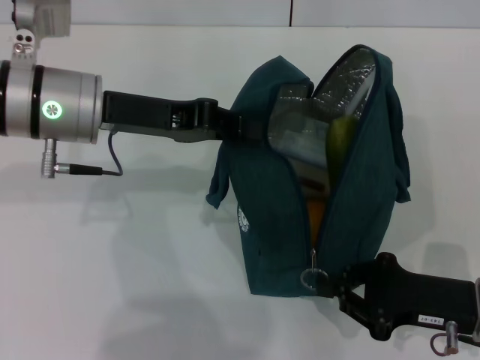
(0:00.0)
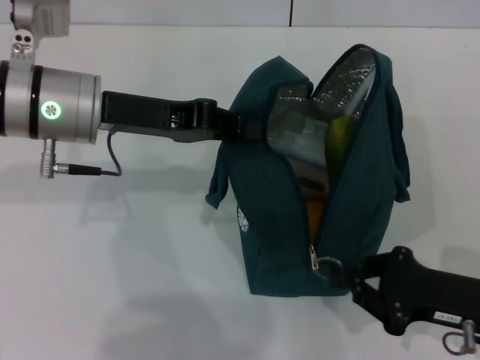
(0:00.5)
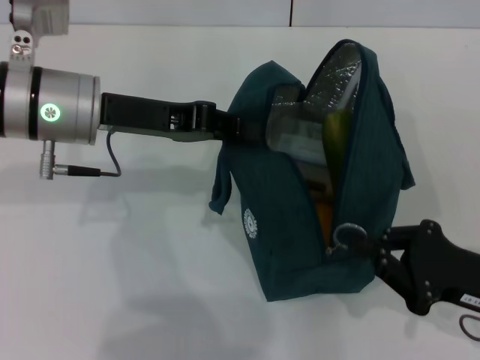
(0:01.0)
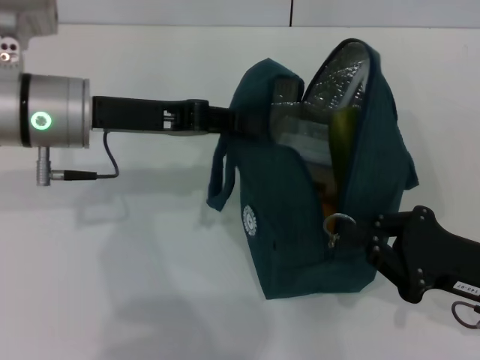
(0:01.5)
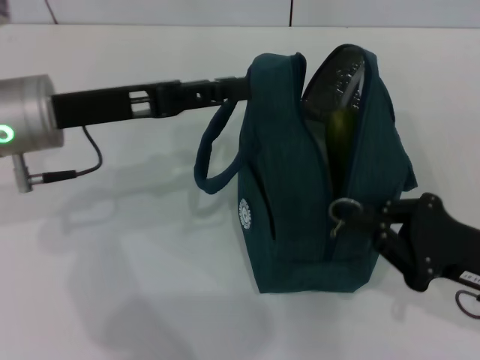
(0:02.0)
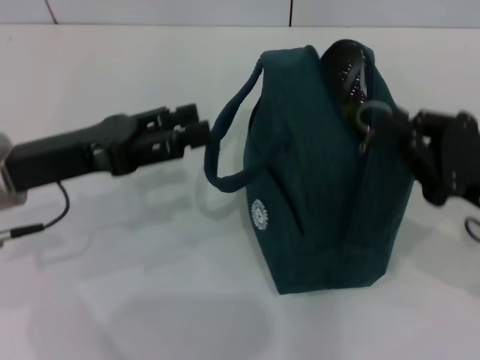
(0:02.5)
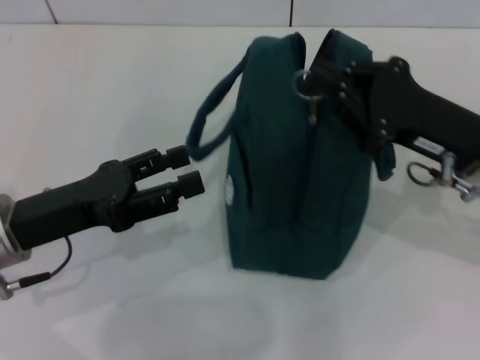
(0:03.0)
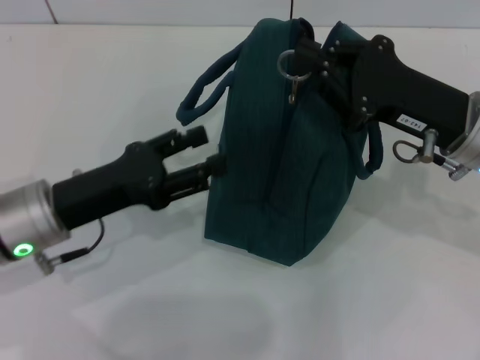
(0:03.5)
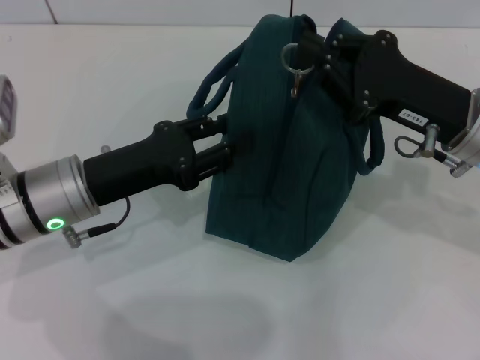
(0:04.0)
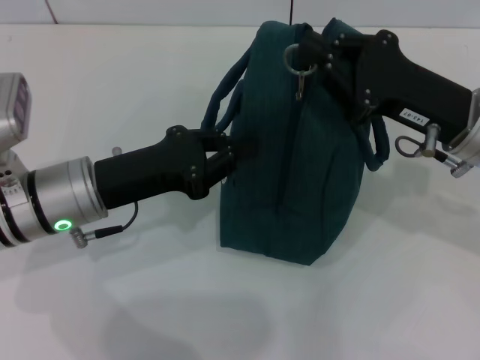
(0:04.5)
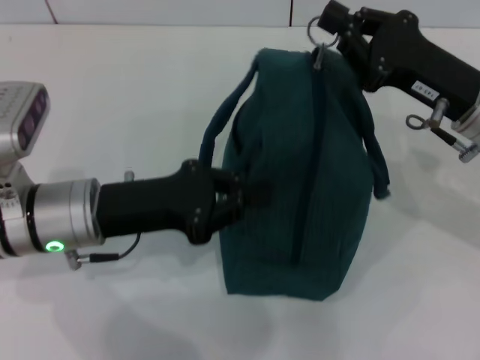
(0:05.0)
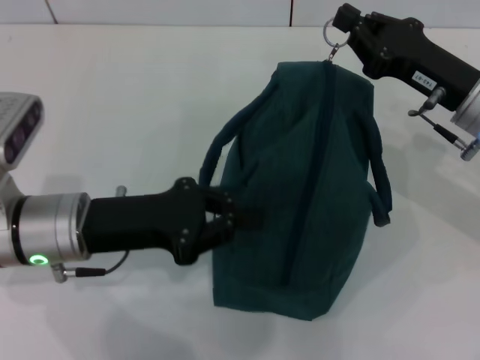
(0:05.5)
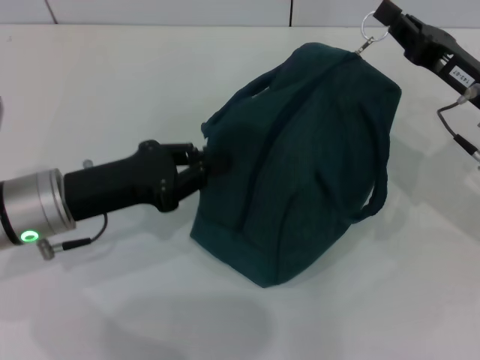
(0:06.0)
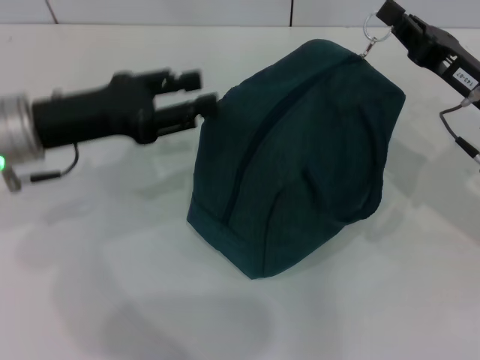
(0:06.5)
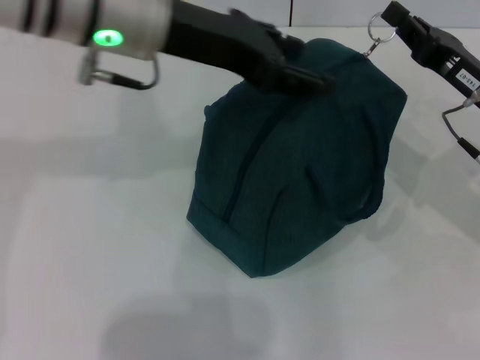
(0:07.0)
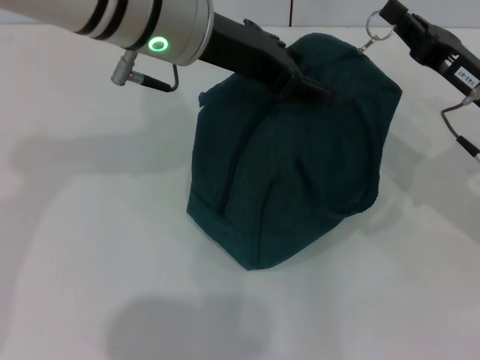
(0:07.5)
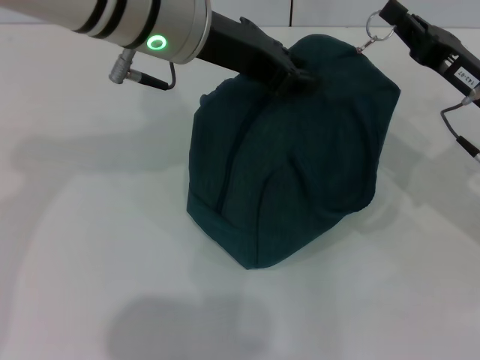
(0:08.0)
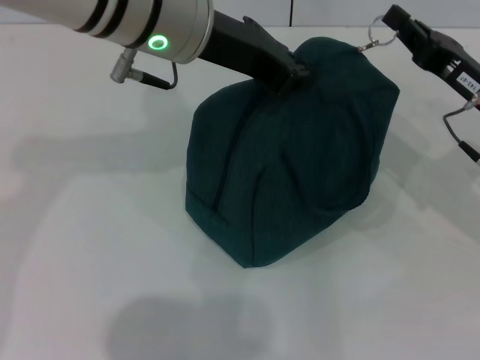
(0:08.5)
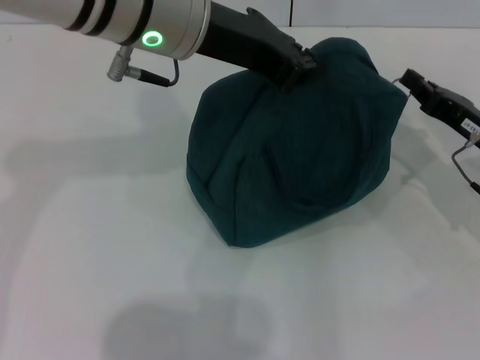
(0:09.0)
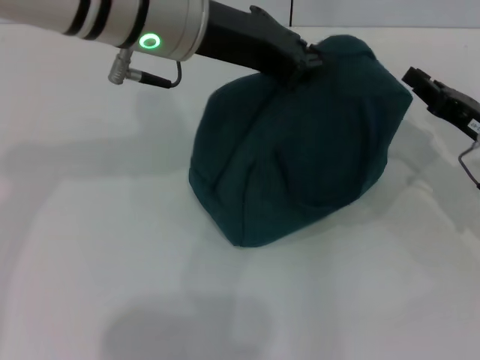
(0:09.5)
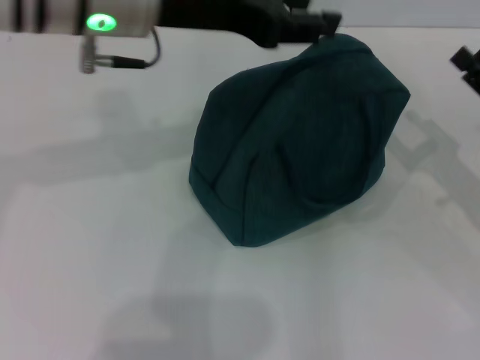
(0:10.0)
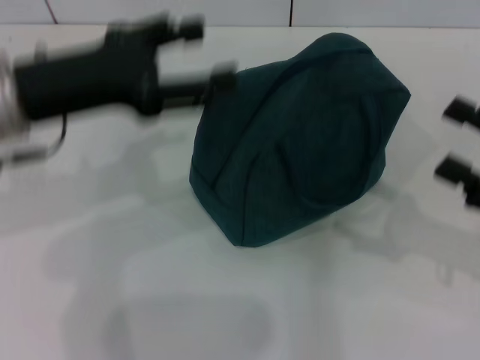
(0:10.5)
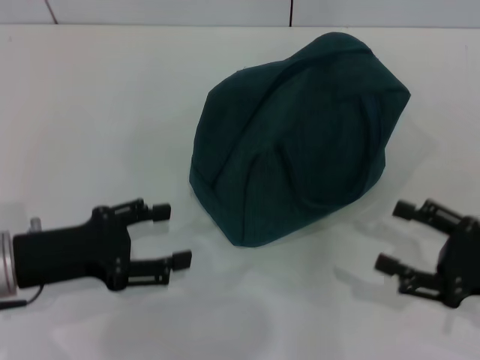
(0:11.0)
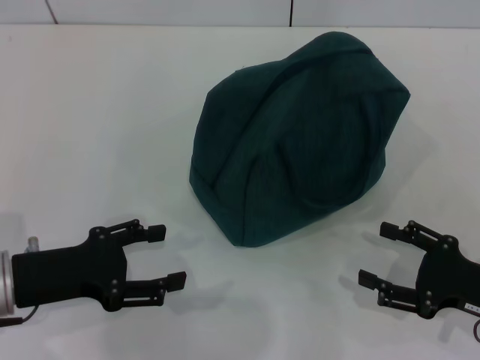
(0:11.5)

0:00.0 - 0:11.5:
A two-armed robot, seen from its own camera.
Step, 0:00.0 - 0:03.0: Hold the lunch bag with your left hand.
Step, 0:03.5 - 0:09.0: Zip up the lunch bag with your right hand.
0:00.0 - 0:02.0: The left gripper opens its fingers.
0:02.0 - 0:04.0: The right gripper shifts roughly 15 cm forward, upward and to the left, while the left gripper travels downward by some 10 cm.
0:04.0 - 0:06.0: The right gripper changes place by about 5 cm. The left gripper closes up.
0:06.0 - 0:07.5: The left gripper is displaced upward, to the right and forward by roughly 20 cm, and opens up.
0:07.5 - 0:09.5: The right gripper moves approximately 5 cm. The left gripper closes up.
0:09.5 - 0:11.5: The left gripper shifts roughly 30 cm downward, to the left and backward, and opens; the right gripper travels backward by roughly 10 cm, and opens up.

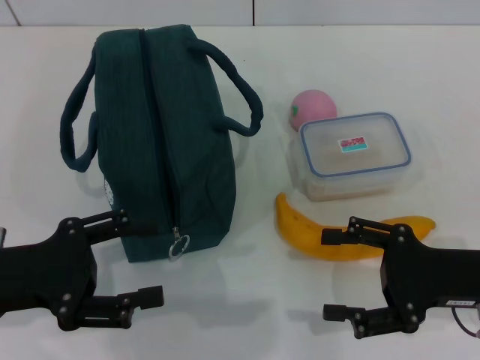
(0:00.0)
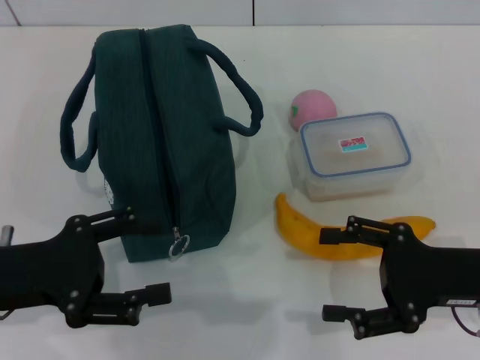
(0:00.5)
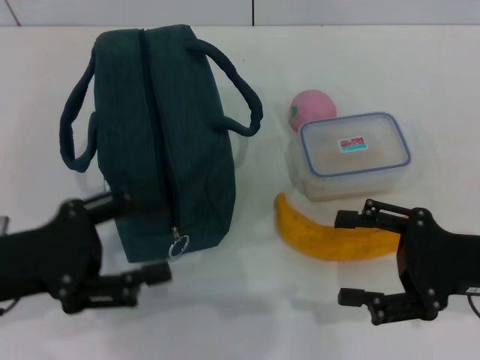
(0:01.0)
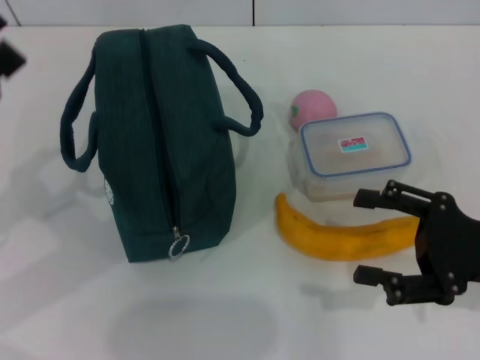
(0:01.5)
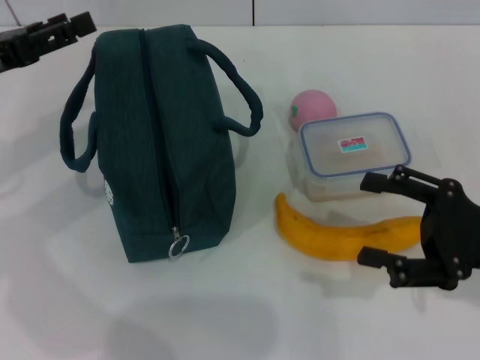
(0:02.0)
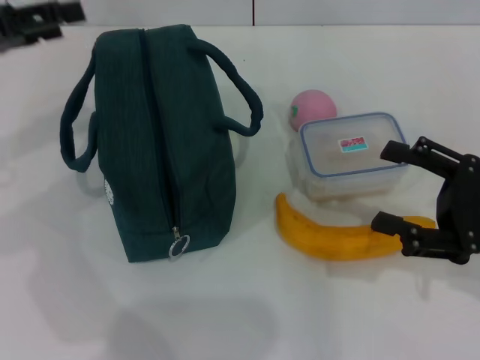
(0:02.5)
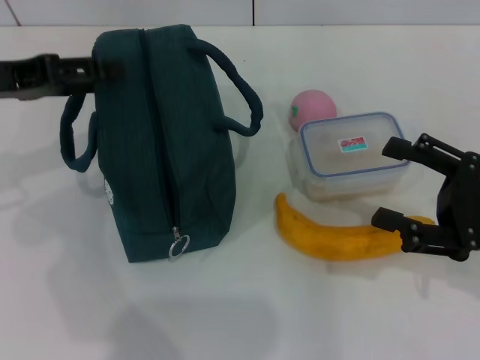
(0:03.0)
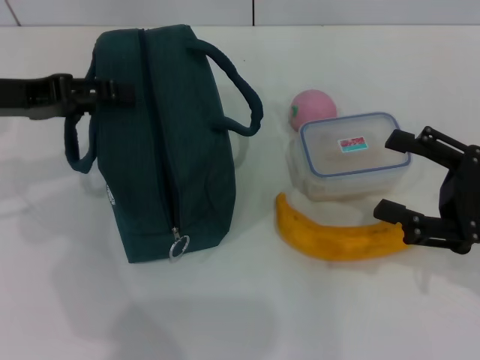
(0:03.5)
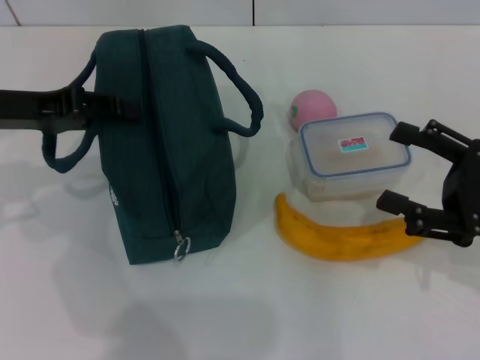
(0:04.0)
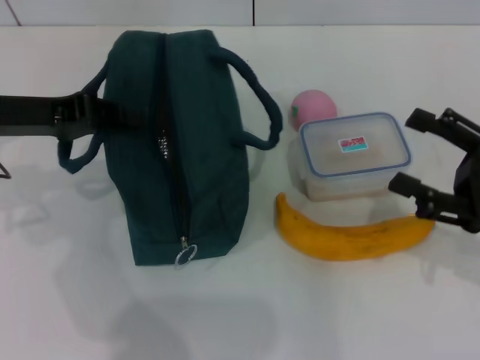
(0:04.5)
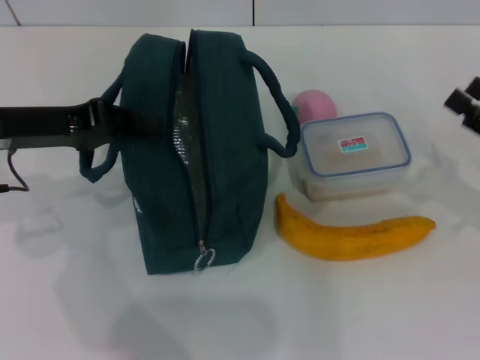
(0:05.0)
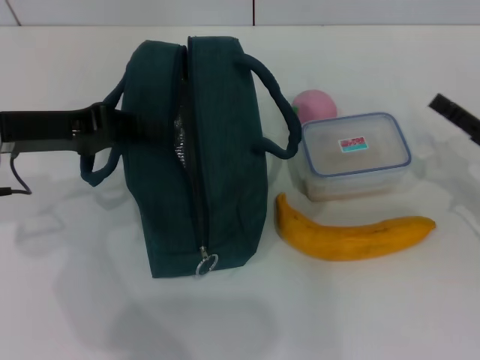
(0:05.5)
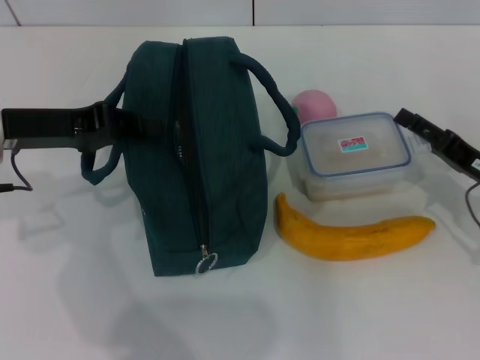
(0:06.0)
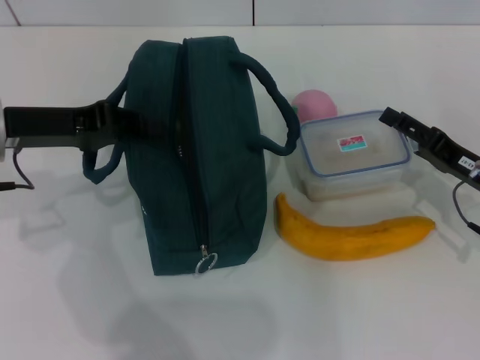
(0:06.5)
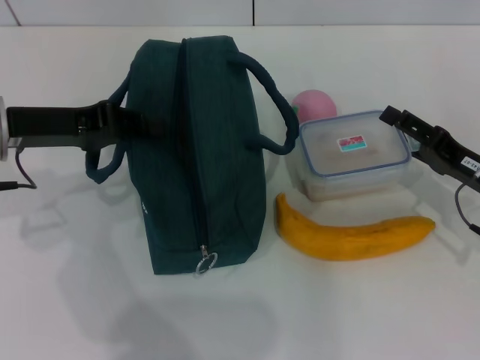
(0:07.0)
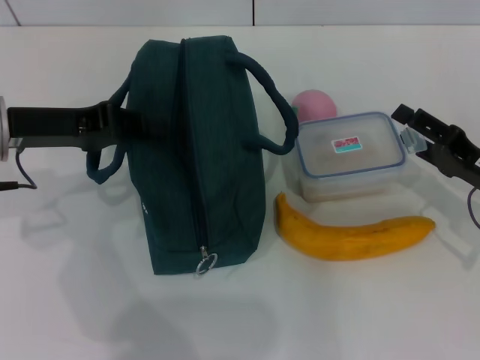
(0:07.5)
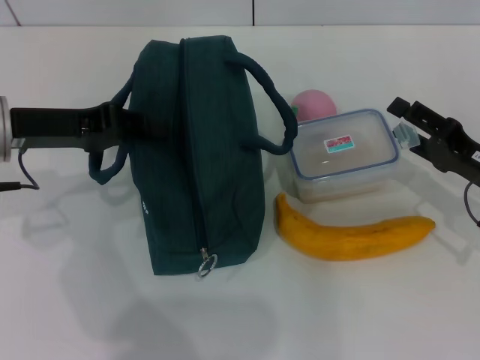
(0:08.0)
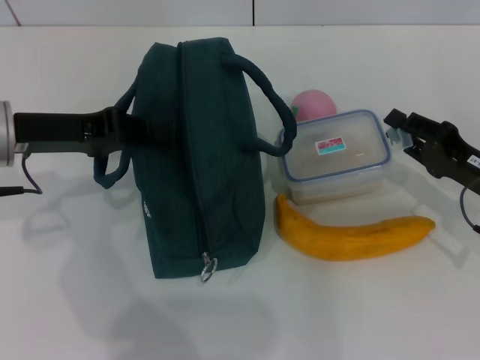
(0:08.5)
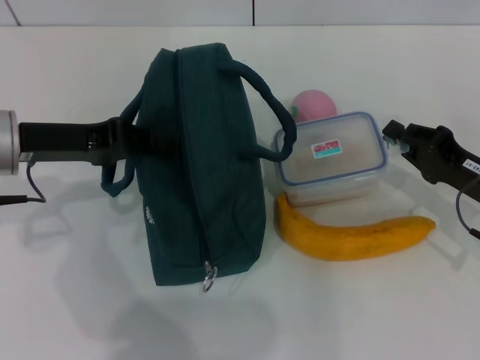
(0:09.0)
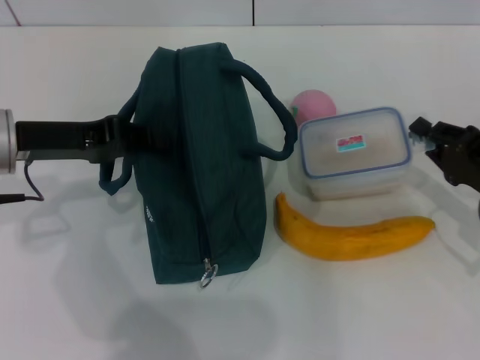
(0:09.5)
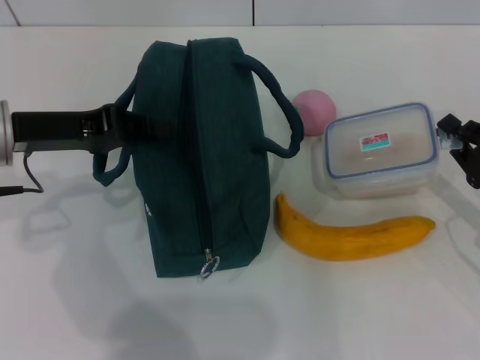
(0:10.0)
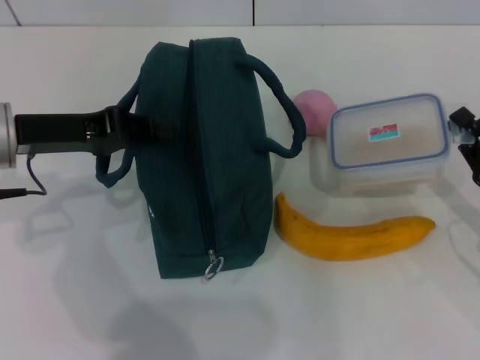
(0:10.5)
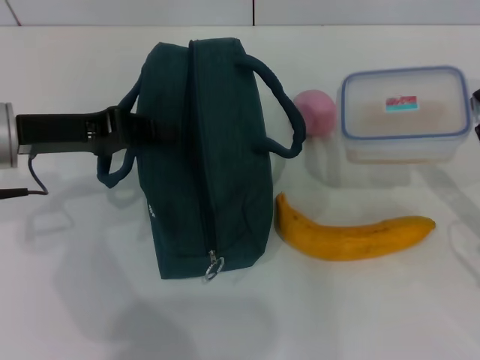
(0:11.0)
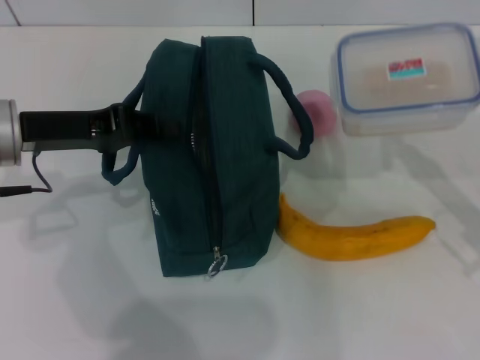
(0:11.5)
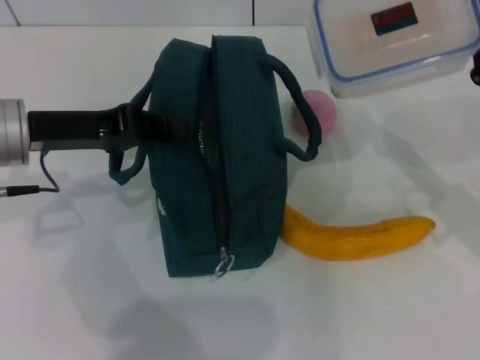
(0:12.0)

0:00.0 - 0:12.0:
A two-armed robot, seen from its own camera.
Step, 0:00.0 - 0:05.0: Hold the lunch bag with your left hand.
Step, 0:05.5 - 0:09.0: Pick up the lunch box with your right hand.
0:00.0 - 0:02.0: The left gripper heads forward and upward, covering approximately 15 cm.
0:04.0 - 0:06.0: The left gripper closes up. The right gripper travels downward and forward by roughly 10 cm.
0:06.0 - 0:08.0: There are only small adjustments of the grippers.
0:08.0 - 0:10.0: The right gripper closes.
0:10.0 - 0:12.0: The right gripper moves upward, approximately 5 cm.

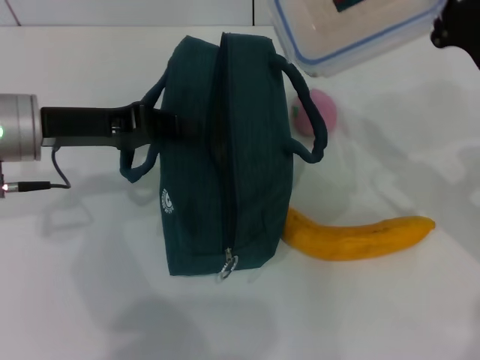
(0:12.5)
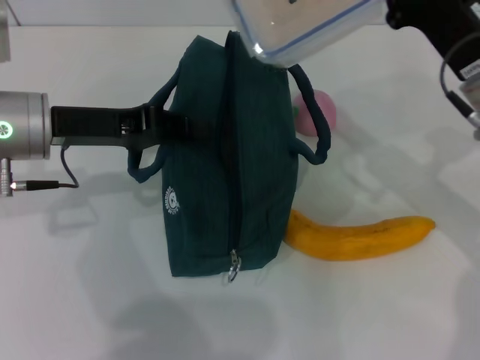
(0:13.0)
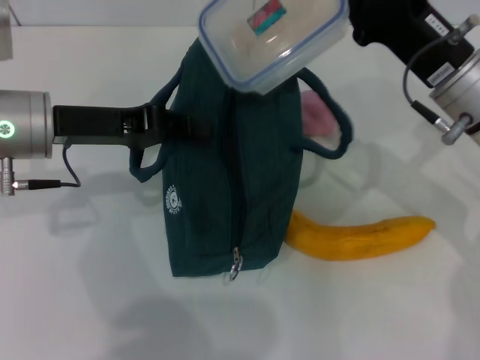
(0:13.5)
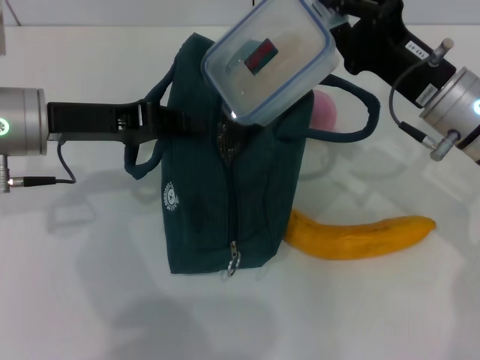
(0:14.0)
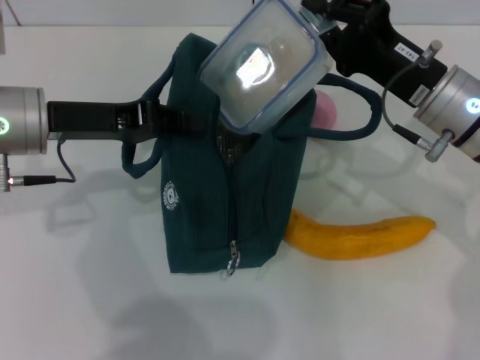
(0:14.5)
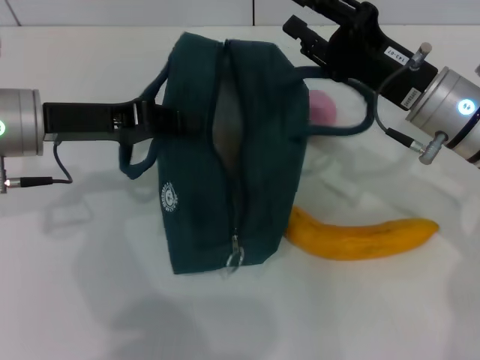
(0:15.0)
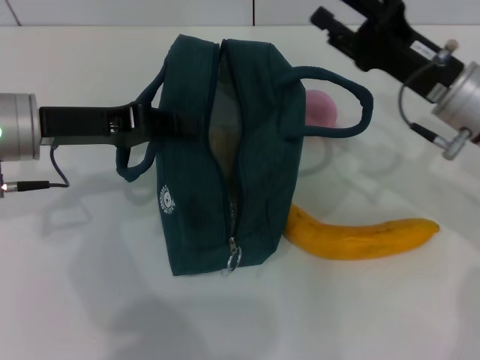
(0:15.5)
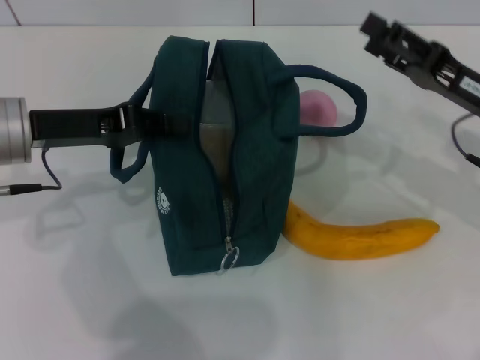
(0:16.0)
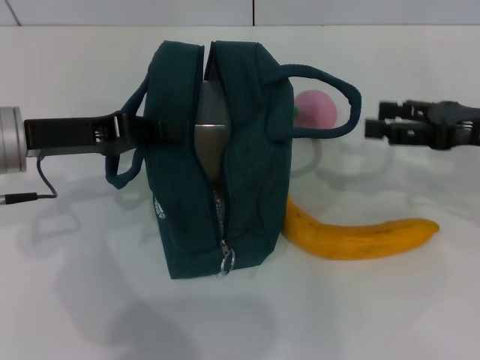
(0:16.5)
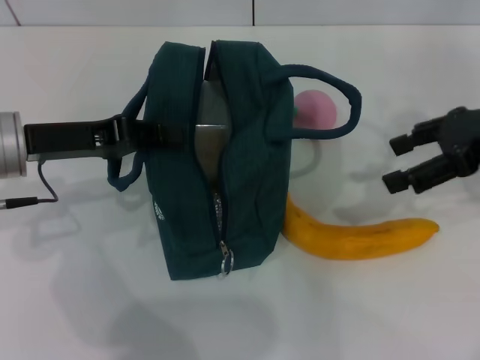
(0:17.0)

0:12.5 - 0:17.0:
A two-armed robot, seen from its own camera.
Step, 0:12.5 - 0:15.0: Place the lunch box into the lunch bag with your right hand.
0:12.5 - 0:14.5: The right gripper moves to the left, approximately 5 cm.
0:14.5 - 0:17.0: The right gripper travels to the right and upward by about 10 cm, and opens up.
